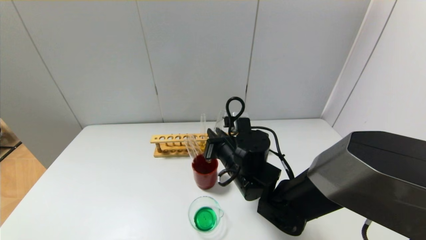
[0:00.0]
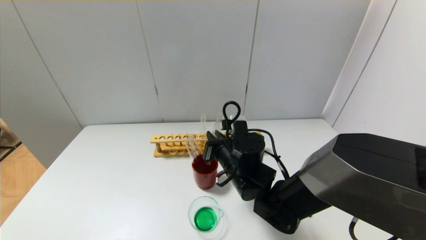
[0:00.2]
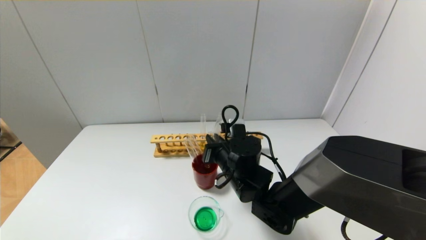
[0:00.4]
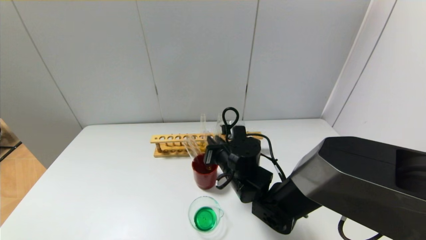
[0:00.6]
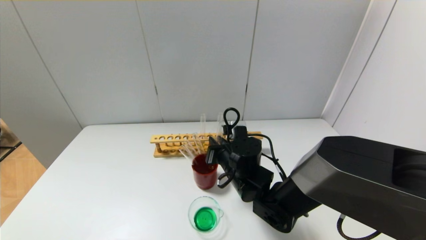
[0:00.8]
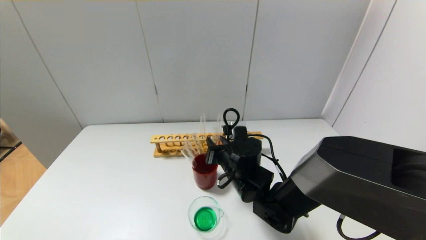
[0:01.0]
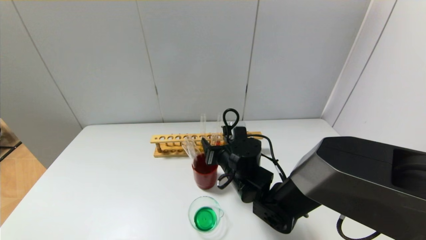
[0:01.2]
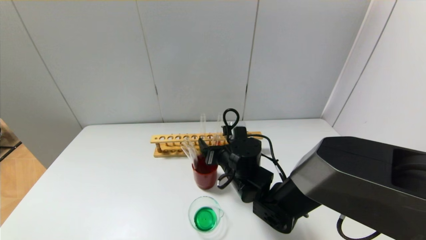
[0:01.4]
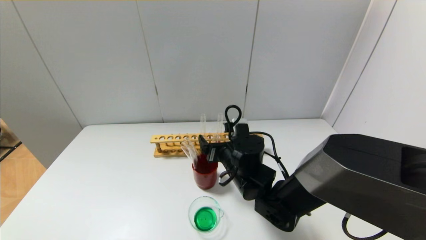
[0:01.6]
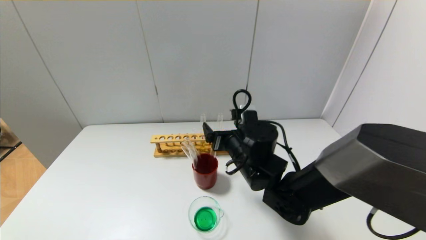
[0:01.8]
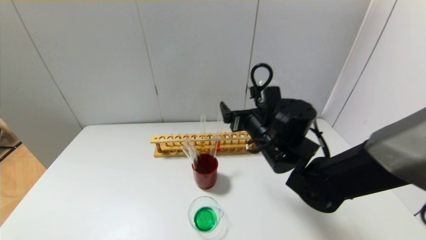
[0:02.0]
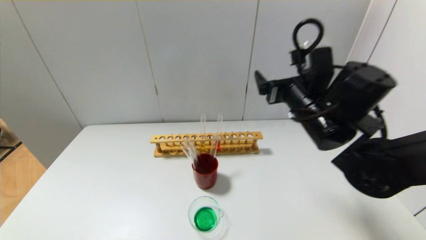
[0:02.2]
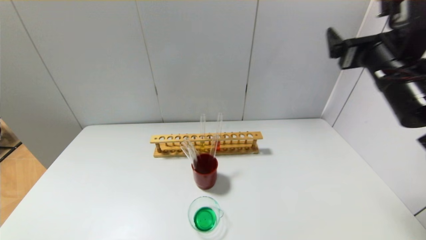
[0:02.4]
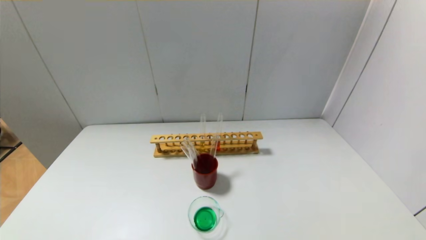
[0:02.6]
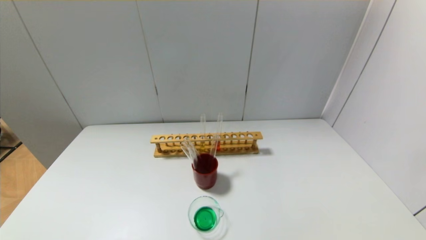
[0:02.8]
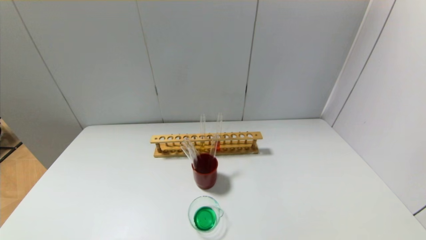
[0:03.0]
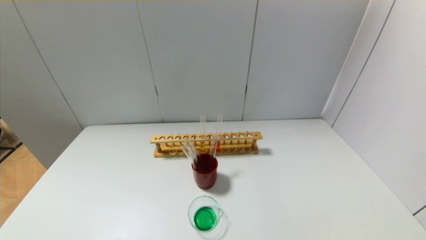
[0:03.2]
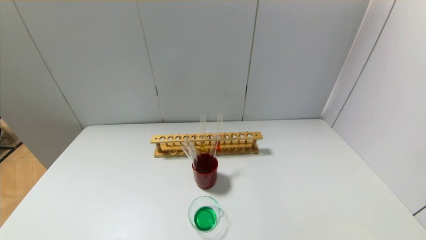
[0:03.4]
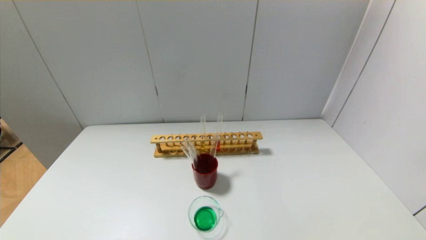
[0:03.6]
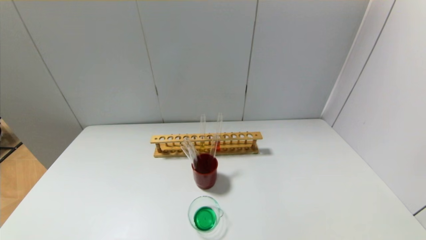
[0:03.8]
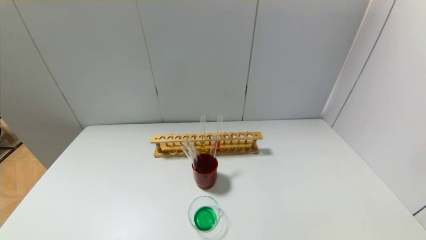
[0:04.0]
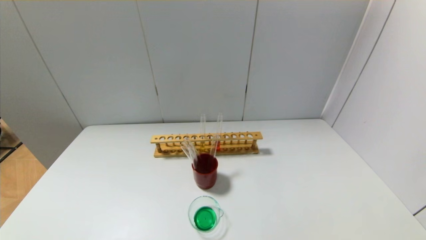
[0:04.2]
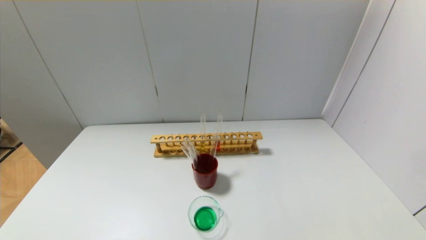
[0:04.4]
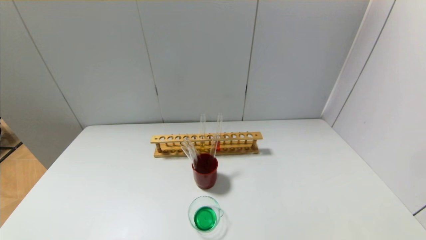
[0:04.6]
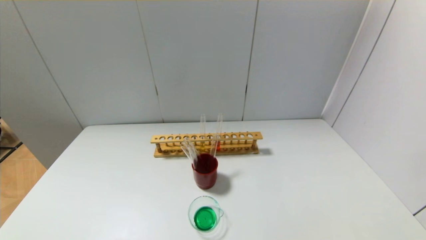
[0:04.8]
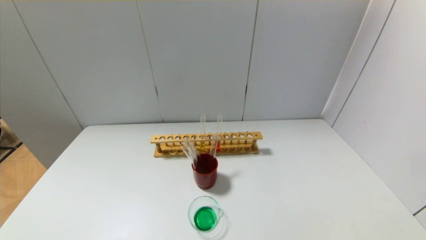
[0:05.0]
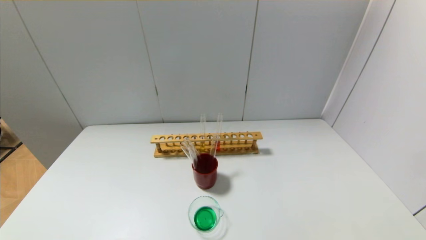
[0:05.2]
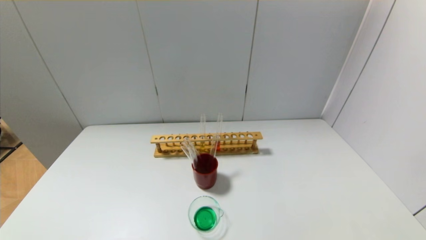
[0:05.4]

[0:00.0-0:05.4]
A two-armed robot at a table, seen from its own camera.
0:00.0 to 0:01.4: The right gripper opens.
0:01.4 to 0:02.8: The right gripper shifts roughly 50 cm upward, to the right and backward.
